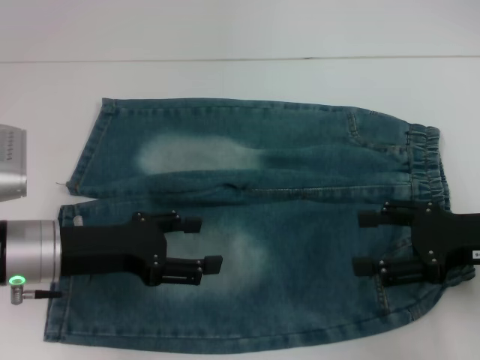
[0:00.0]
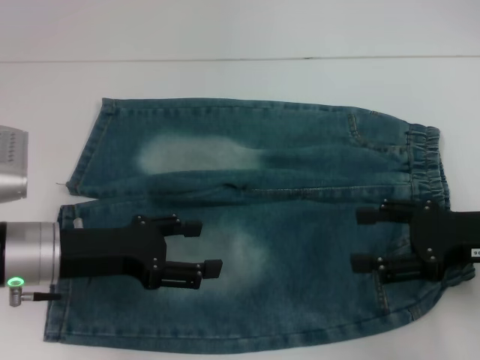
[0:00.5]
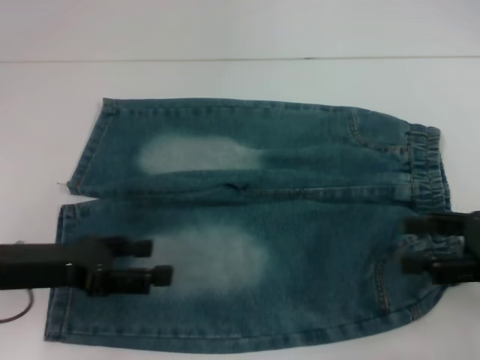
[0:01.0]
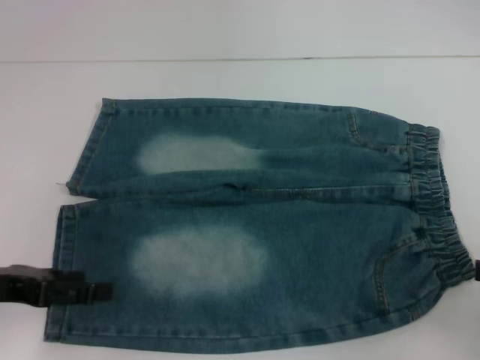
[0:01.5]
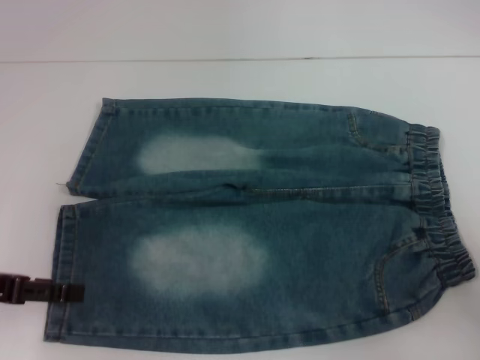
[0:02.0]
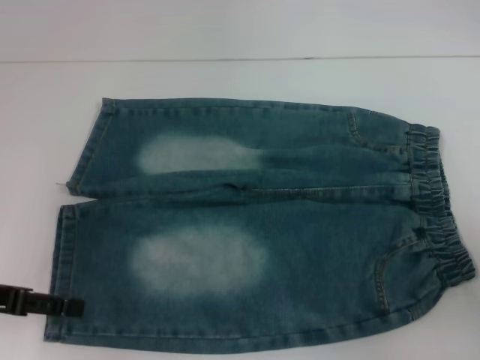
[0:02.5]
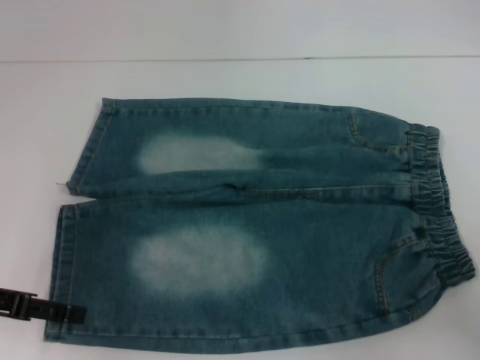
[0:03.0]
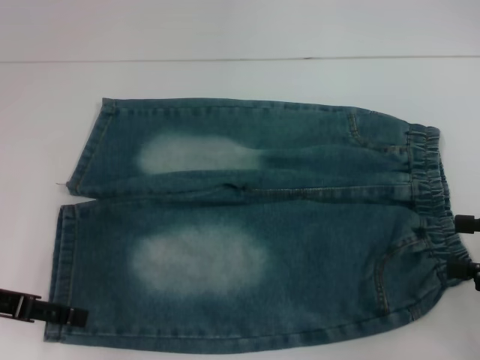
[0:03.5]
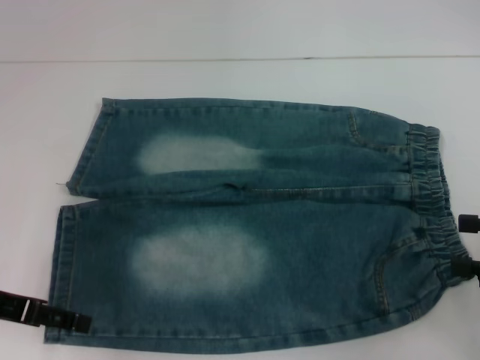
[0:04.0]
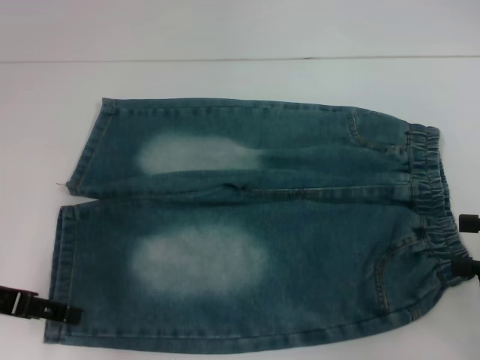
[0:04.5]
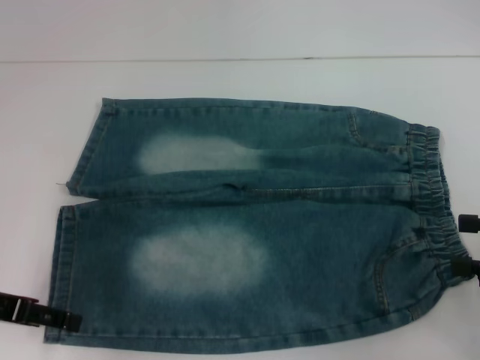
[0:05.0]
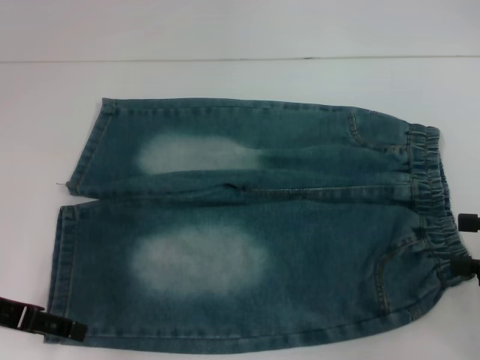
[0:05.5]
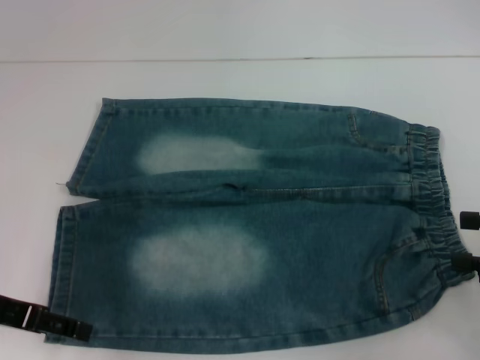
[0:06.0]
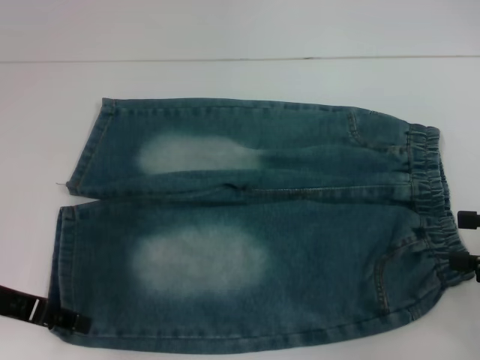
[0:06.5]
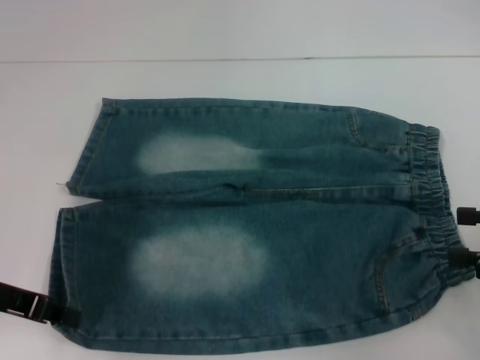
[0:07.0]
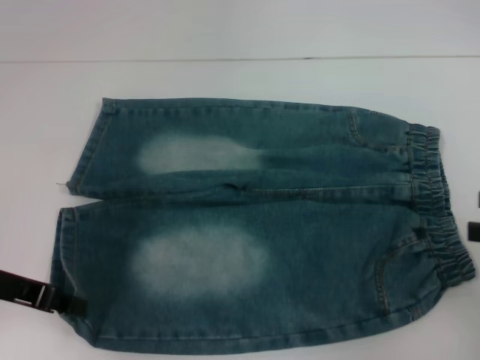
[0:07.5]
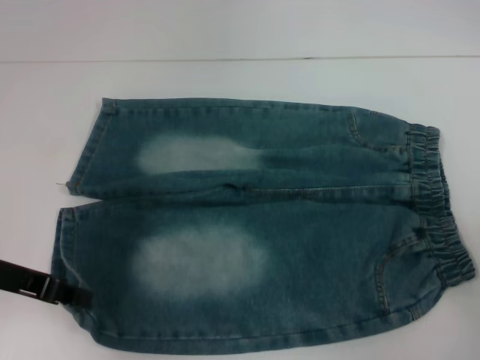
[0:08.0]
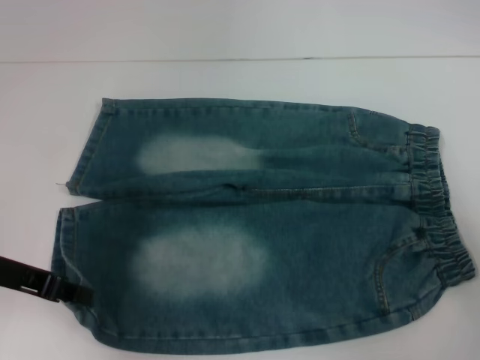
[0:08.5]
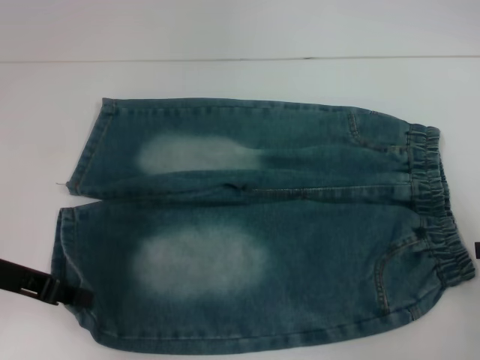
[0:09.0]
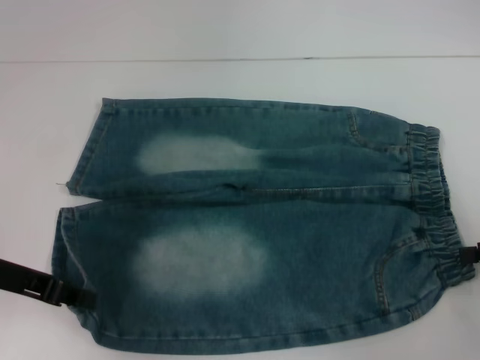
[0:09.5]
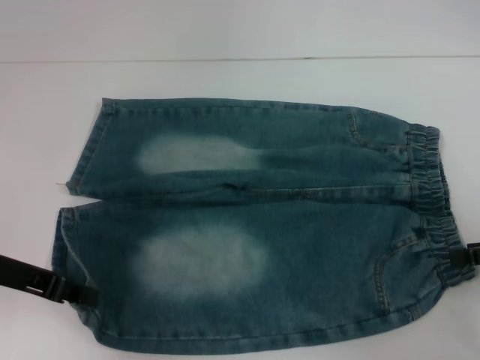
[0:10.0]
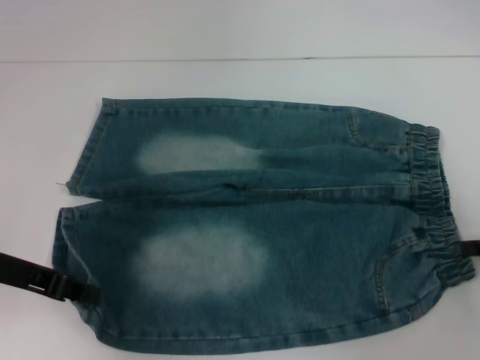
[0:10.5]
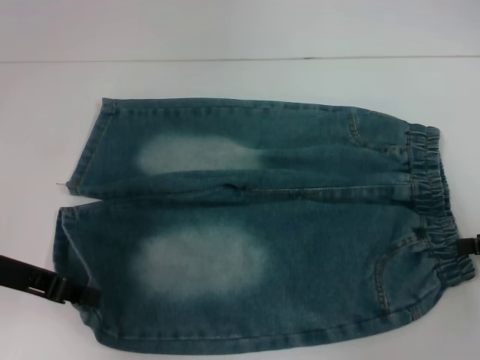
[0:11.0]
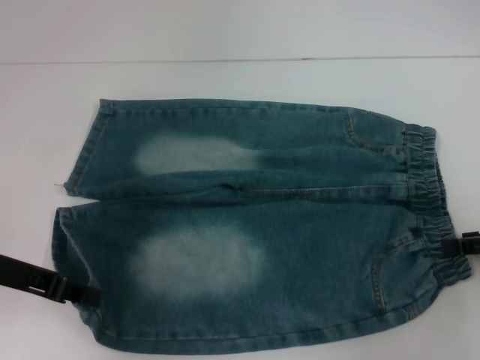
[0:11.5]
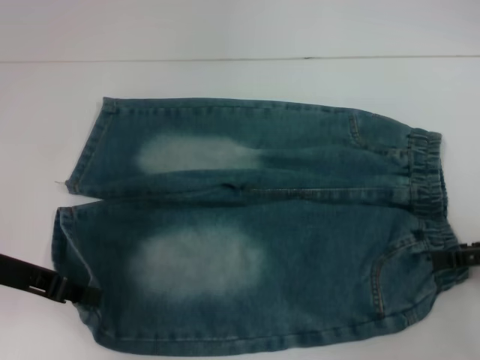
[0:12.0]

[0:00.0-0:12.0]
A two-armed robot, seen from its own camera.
Step, 0:00.0 to 0:06.5: Grab the lower left pant leg with your left hand.
0:00.0 to 0:02.0: The left gripper shifts roughly 10 cm to the left. Meanwhile the right gripper heads to the right and backward, covering about 15 cm.
0:04.0 to 0:06.0: Both grippers stay about where they are.
0:06.0 to 0:08.0: The left gripper closes its fingers.
0:10.0 to 0:12.0: The grippers move only a little.

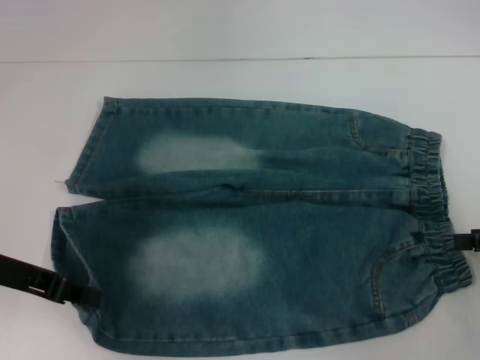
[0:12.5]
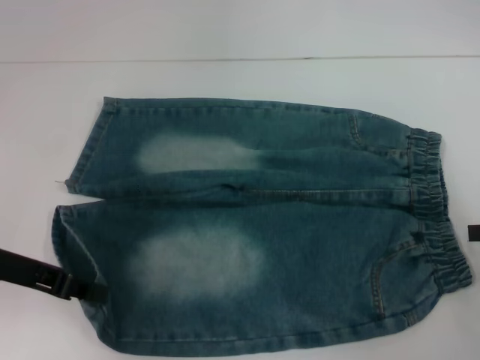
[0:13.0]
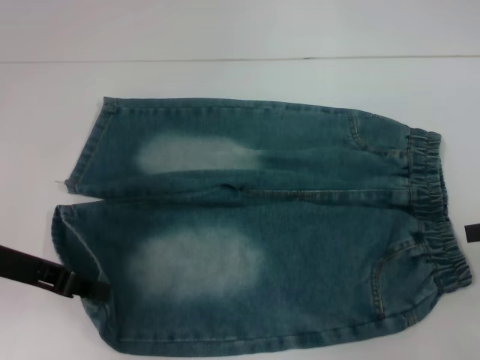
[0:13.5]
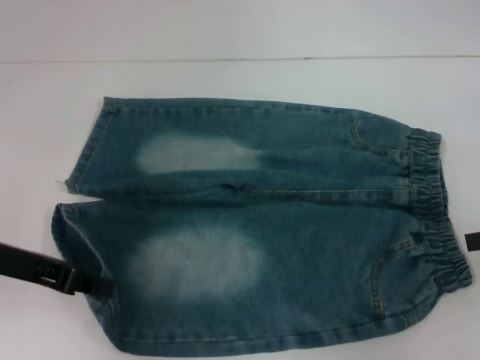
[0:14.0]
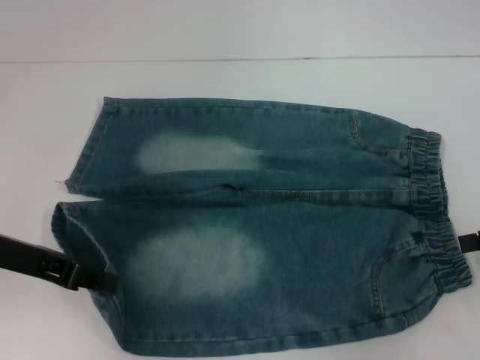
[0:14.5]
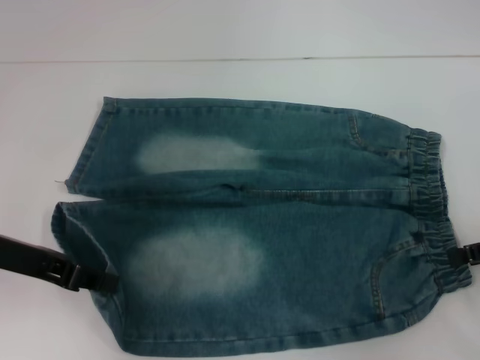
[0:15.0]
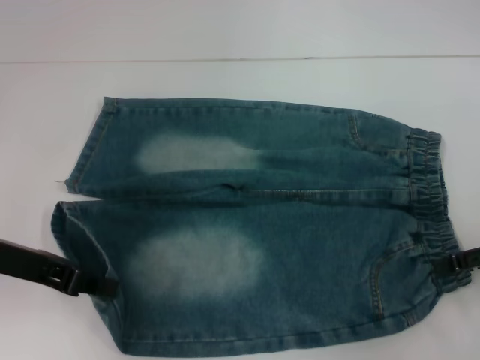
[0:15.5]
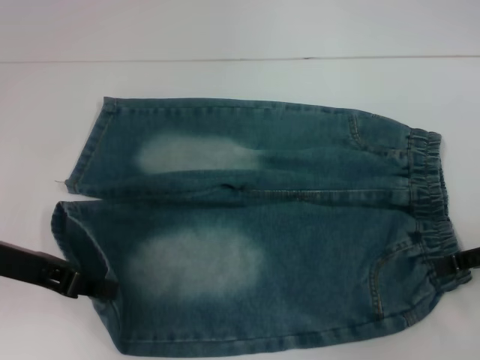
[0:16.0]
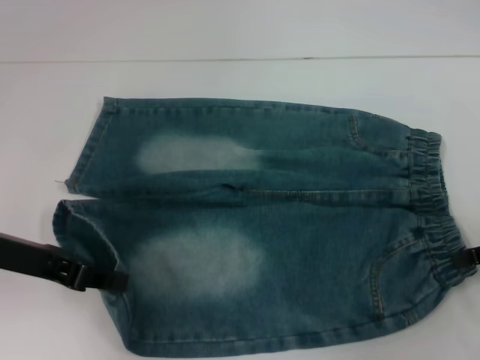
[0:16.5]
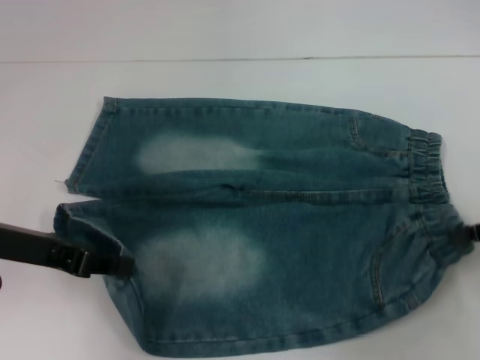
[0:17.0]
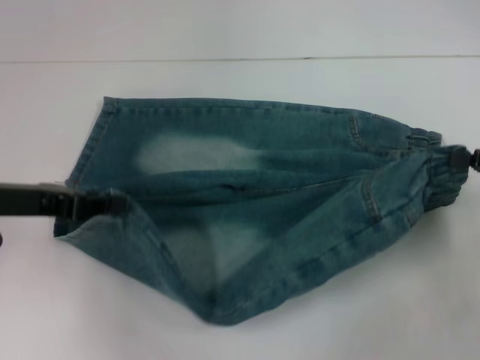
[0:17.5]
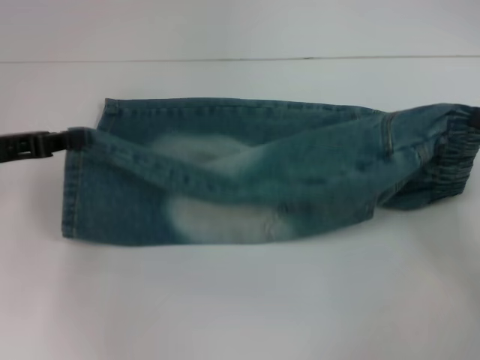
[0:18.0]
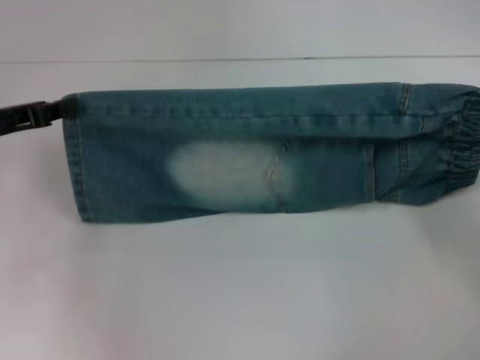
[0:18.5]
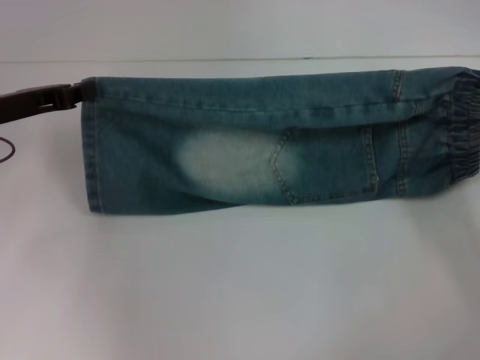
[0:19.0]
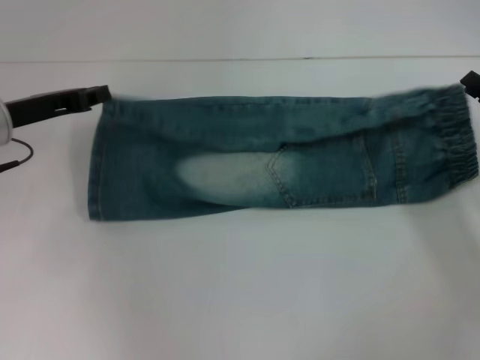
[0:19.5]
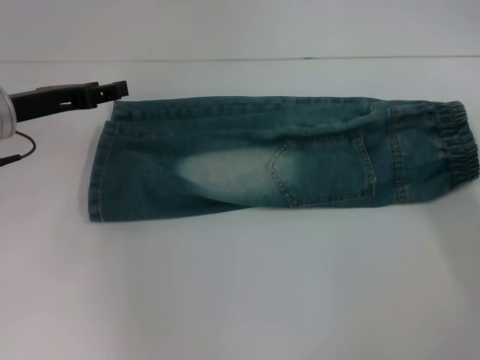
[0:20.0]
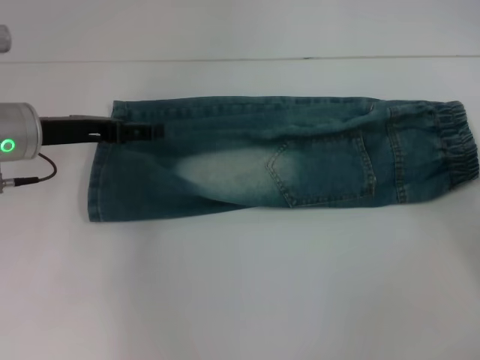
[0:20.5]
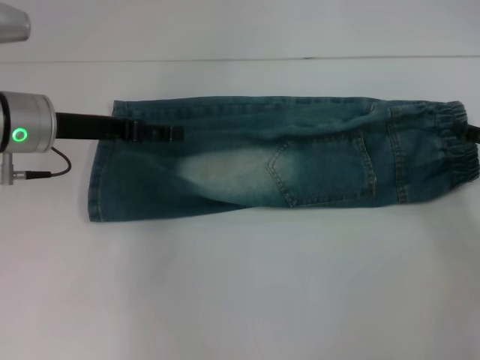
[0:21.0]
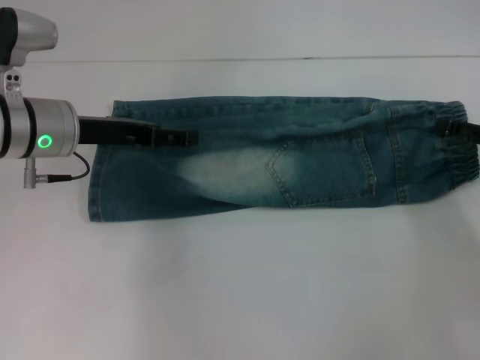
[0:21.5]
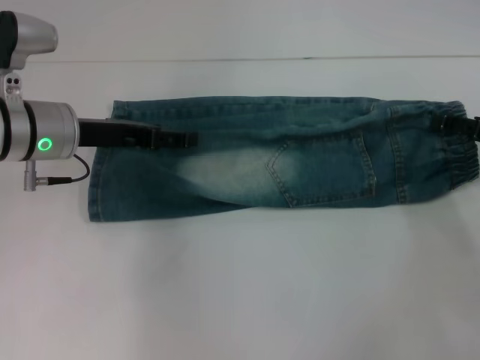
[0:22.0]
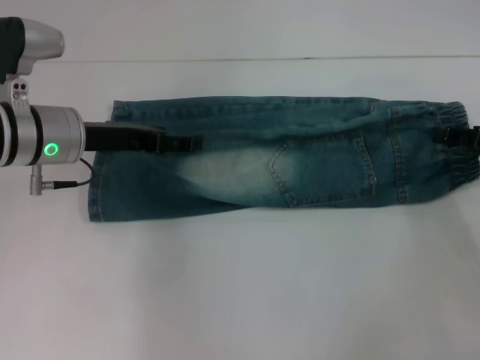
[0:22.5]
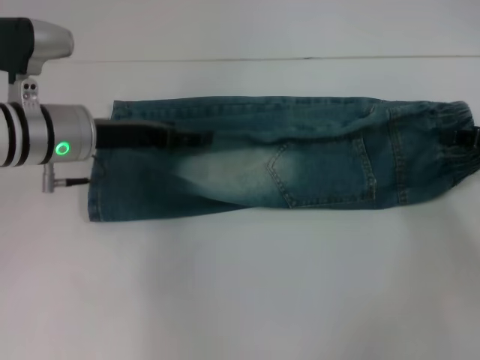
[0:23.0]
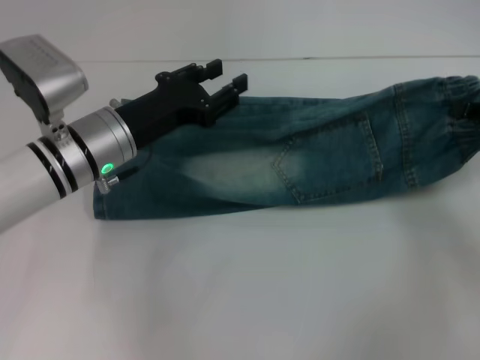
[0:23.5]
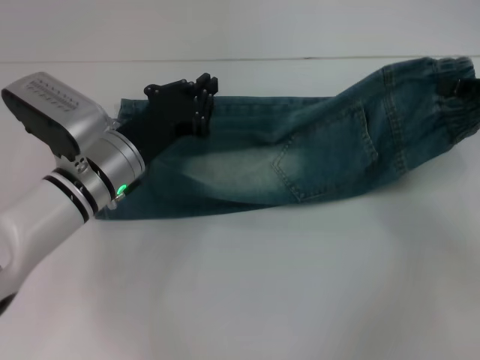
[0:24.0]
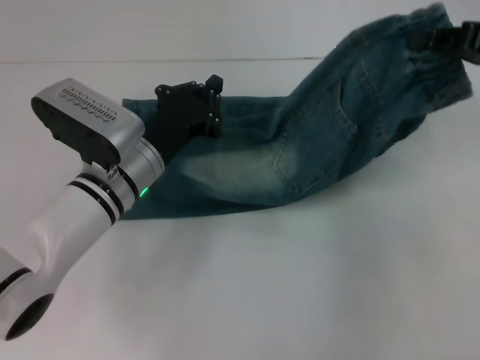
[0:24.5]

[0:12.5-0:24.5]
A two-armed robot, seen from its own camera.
Step, 0:12.5 to 0:16.5: Hold the lower right waistband with your right hand.
Step, 0:17.0 to 0:19.0: Fold upward with your left hand.
Step, 0:20.0 to 0:22.5: Grab the waistband with your right hand.
0:12.5 to 0:14.5: There are only small adjustments of the grippers.
0:14.5 to 0:16.5: The right gripper closes up.
0:16.5 to 0:18.5: The left gripper goes some 5 cm forward.
0:18.5 to 0:20.5: The right gripper opens its fingers. Meanwhile the left gripper is displaced to the right by approximately 5 cm, and opens its fingers.
0:20.5 to 0:22.5: The right gripper travels forward by about 5 cm.
0:22.5 to 0:24.5: The left gripper goes some 10 cm to the right and downward, and closes its fingers. Meanwhile the right gripper goes about 10 cm upward, and closes.

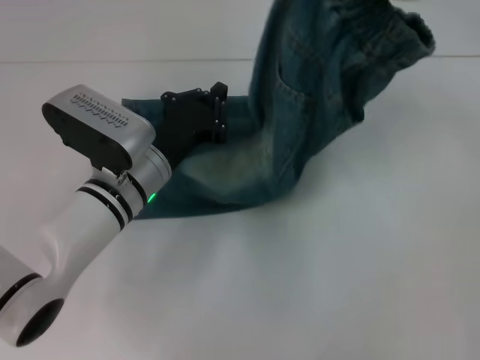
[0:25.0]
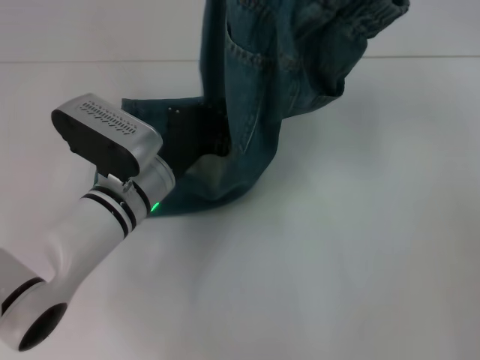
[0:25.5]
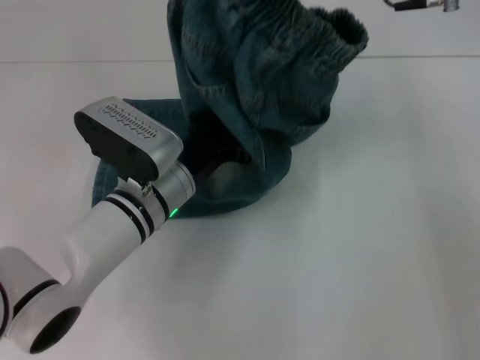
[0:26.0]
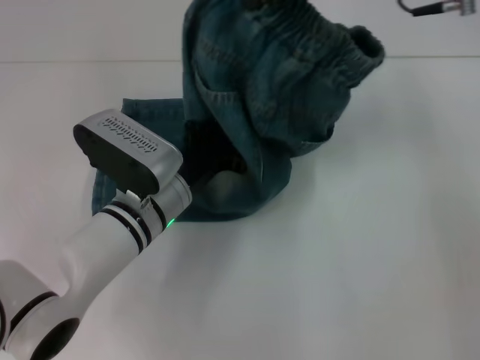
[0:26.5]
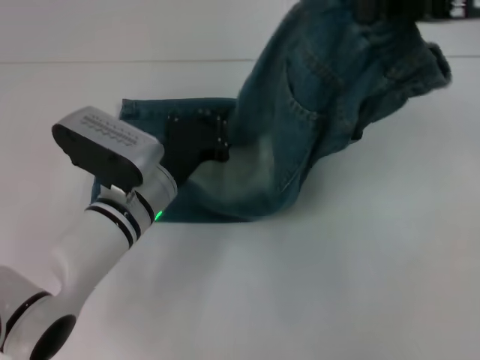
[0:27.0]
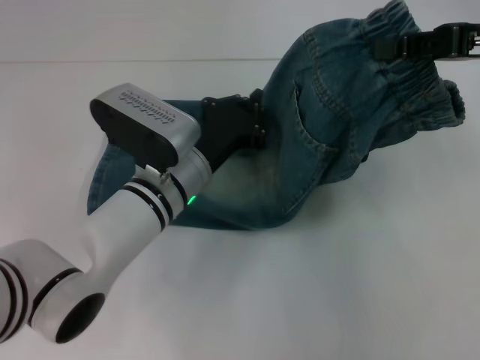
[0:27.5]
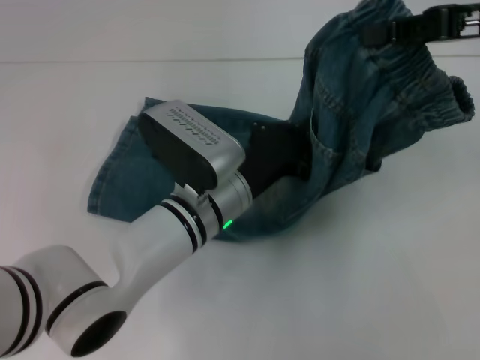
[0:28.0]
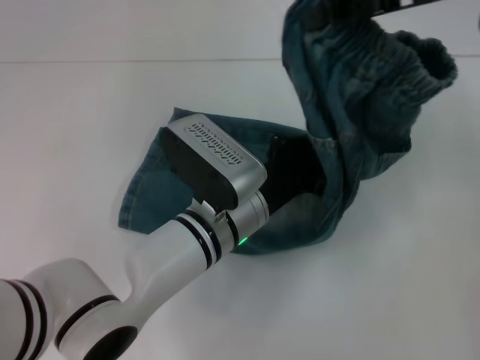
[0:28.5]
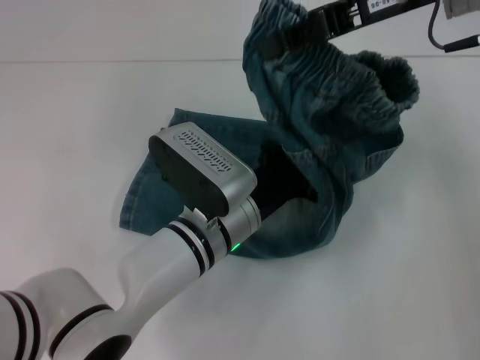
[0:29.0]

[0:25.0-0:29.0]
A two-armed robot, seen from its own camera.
Step, 0:25.0 to 0:29.0: Press the middle of the pants with your left hand.
0:25.0 to 0:27.0: The right gripper reaches about 10 cm to the left, then returns.
0:27.0 to 0:29.0: The left gripper moves to the right, about 10 cm. The right gripper shifts some 10 cm to the left.
